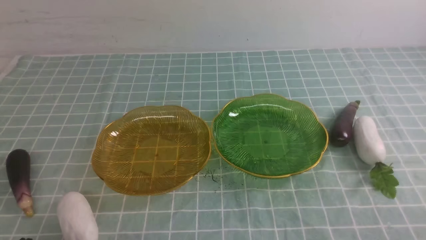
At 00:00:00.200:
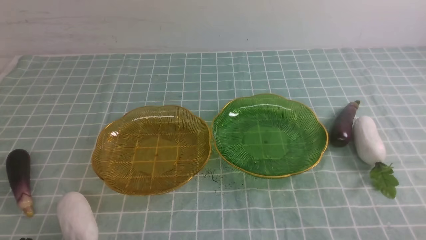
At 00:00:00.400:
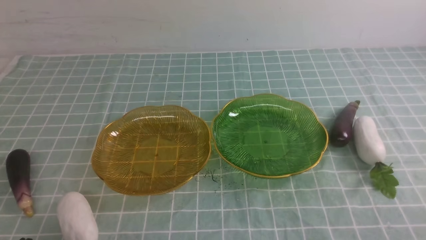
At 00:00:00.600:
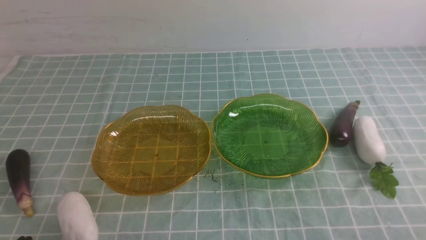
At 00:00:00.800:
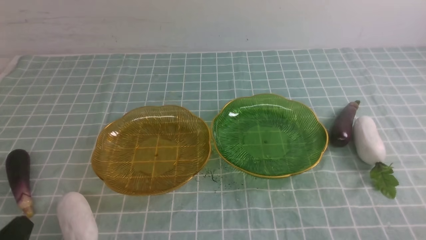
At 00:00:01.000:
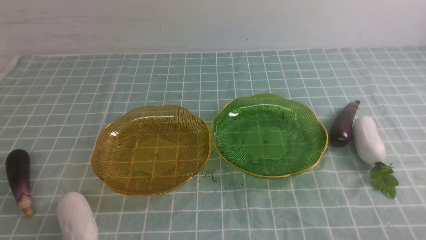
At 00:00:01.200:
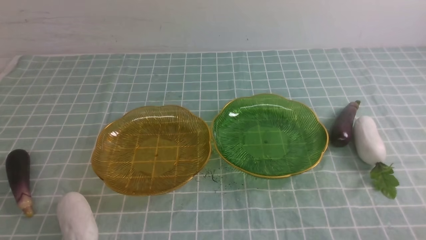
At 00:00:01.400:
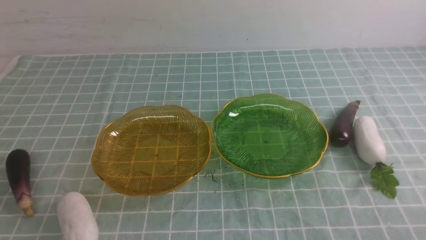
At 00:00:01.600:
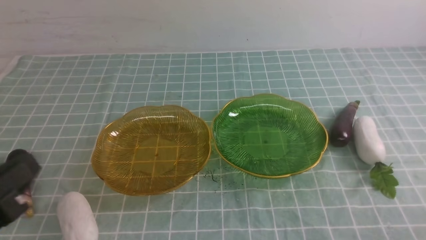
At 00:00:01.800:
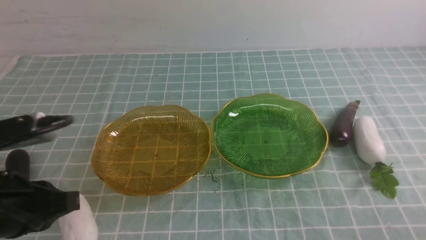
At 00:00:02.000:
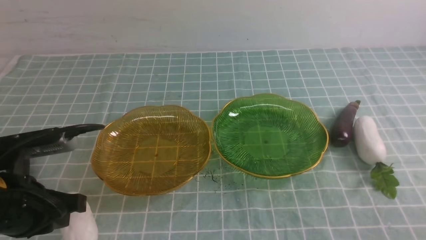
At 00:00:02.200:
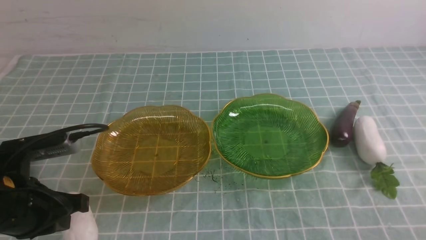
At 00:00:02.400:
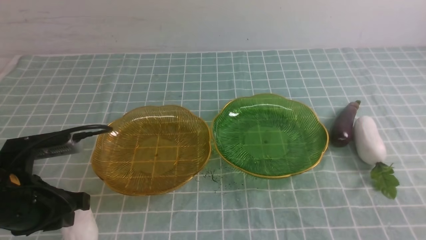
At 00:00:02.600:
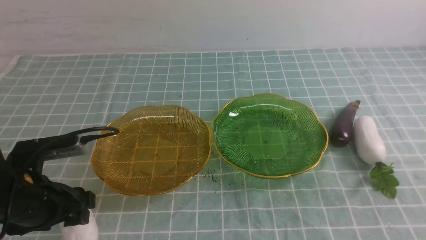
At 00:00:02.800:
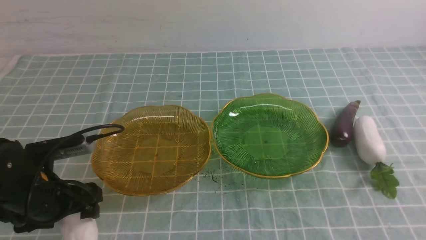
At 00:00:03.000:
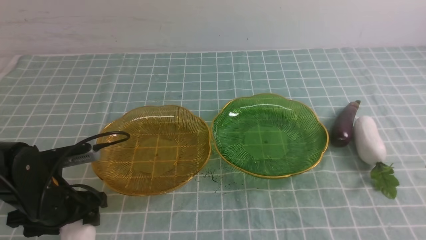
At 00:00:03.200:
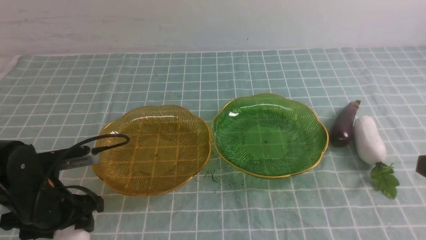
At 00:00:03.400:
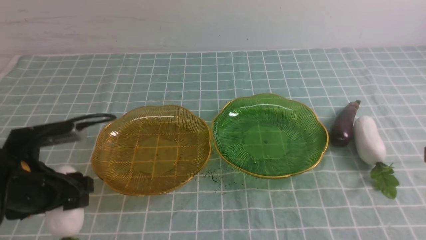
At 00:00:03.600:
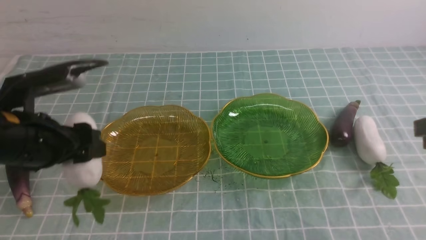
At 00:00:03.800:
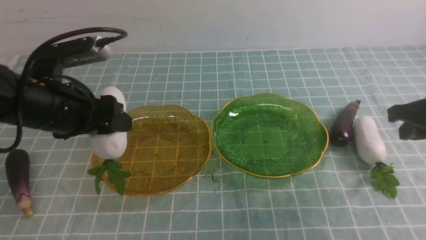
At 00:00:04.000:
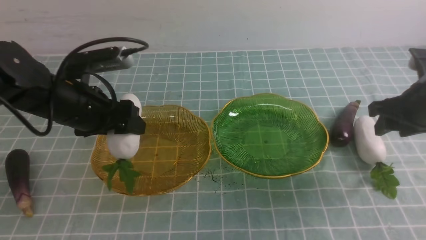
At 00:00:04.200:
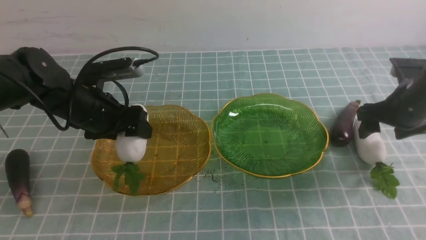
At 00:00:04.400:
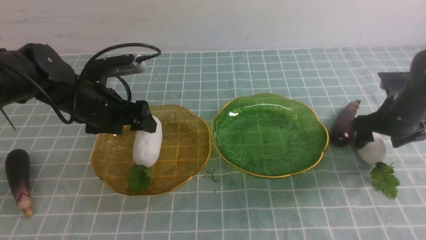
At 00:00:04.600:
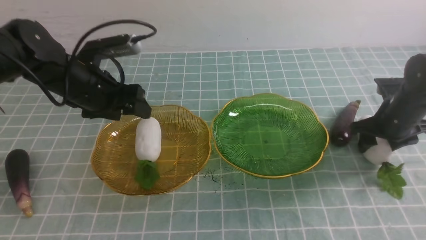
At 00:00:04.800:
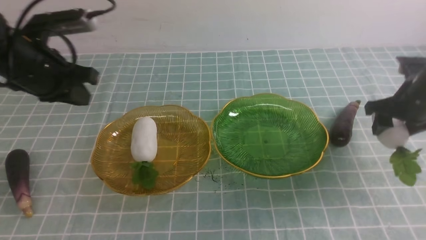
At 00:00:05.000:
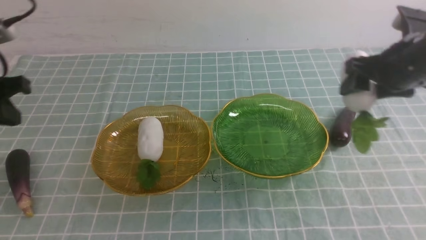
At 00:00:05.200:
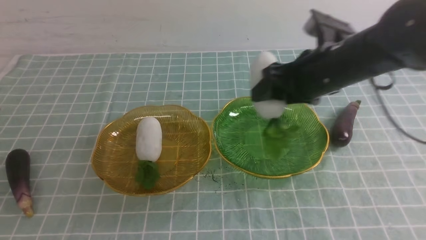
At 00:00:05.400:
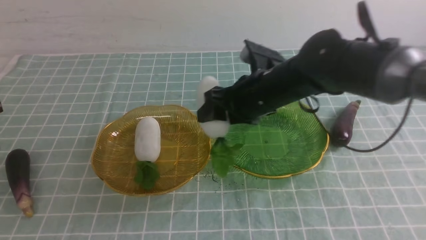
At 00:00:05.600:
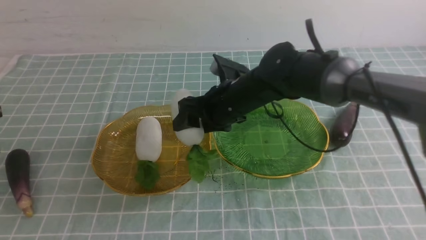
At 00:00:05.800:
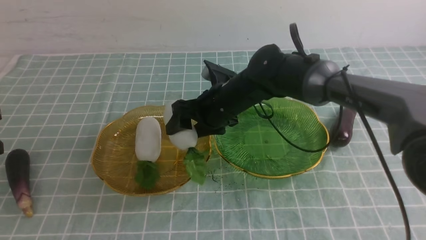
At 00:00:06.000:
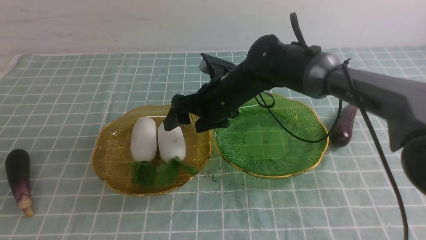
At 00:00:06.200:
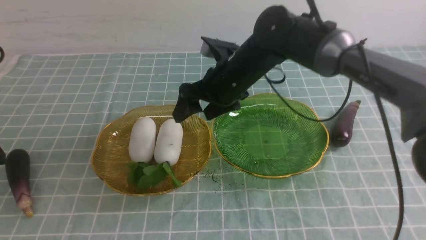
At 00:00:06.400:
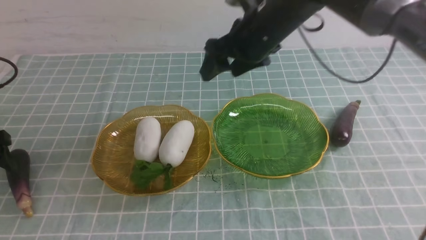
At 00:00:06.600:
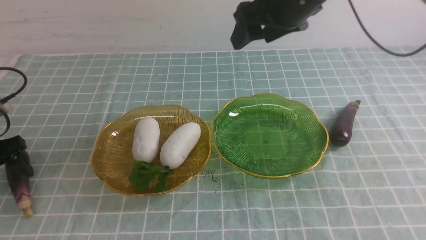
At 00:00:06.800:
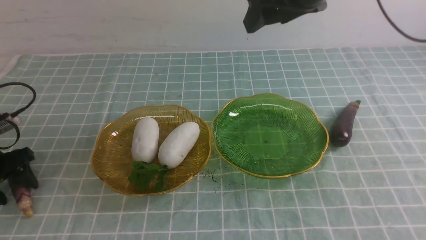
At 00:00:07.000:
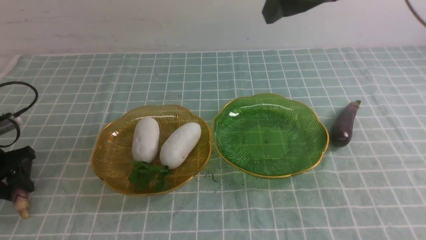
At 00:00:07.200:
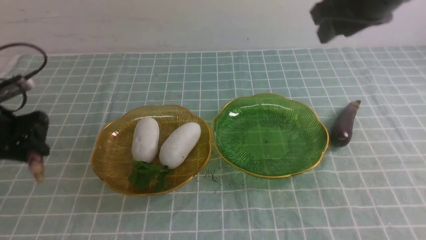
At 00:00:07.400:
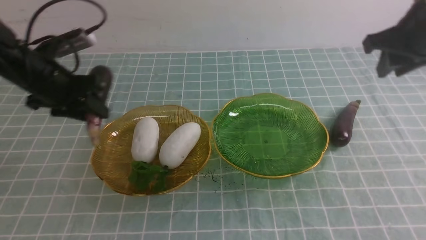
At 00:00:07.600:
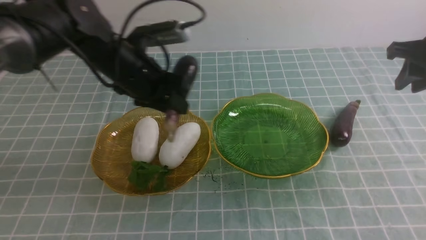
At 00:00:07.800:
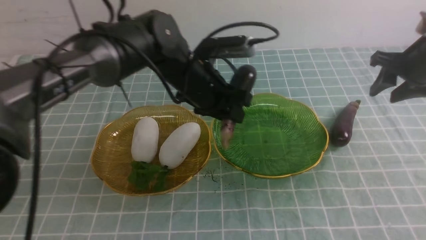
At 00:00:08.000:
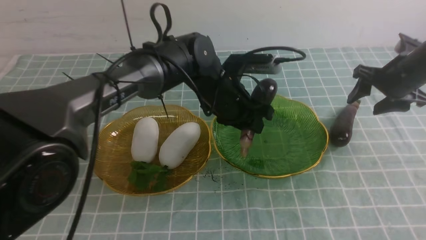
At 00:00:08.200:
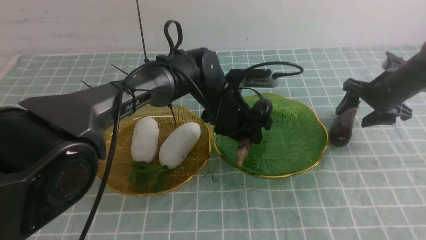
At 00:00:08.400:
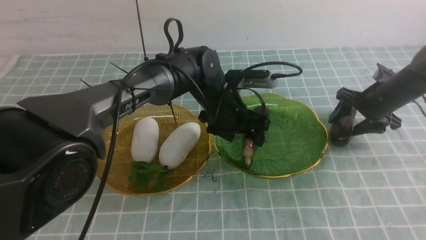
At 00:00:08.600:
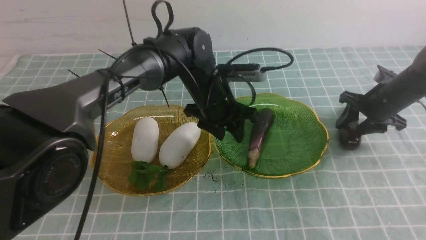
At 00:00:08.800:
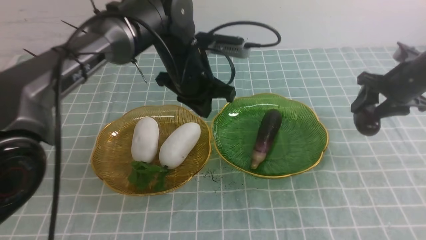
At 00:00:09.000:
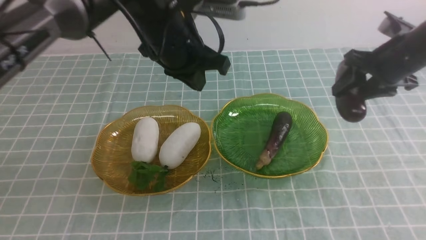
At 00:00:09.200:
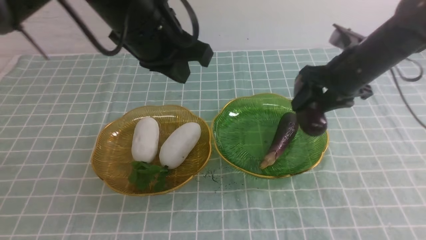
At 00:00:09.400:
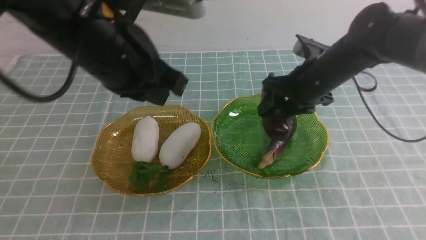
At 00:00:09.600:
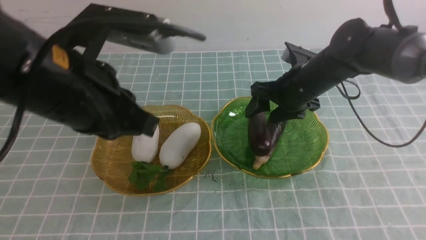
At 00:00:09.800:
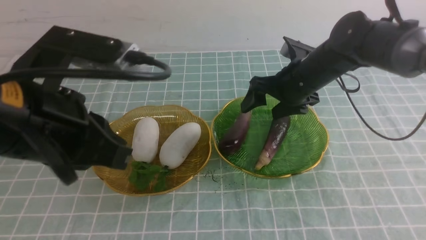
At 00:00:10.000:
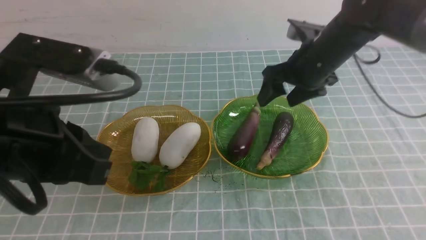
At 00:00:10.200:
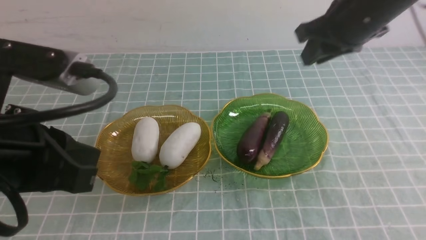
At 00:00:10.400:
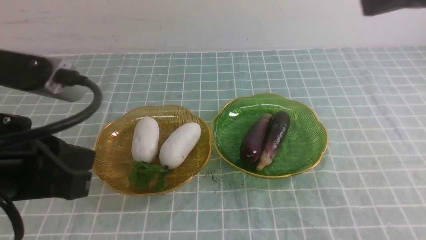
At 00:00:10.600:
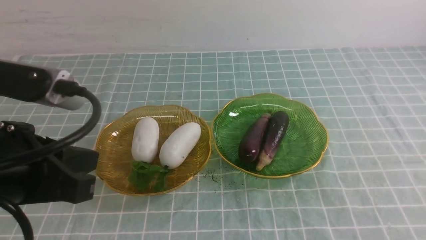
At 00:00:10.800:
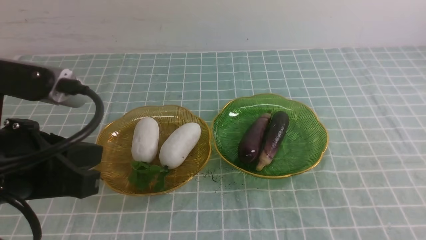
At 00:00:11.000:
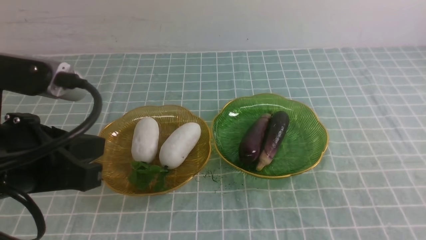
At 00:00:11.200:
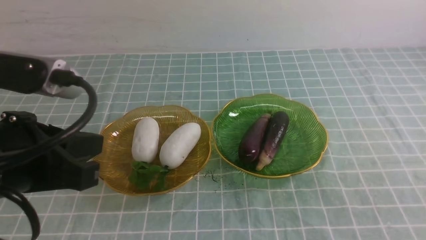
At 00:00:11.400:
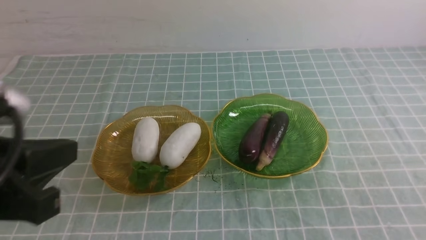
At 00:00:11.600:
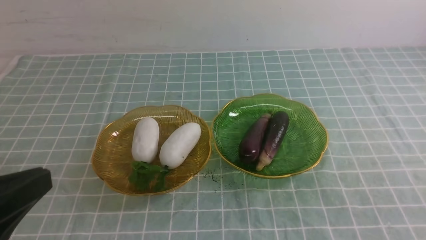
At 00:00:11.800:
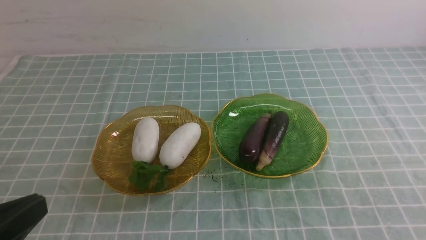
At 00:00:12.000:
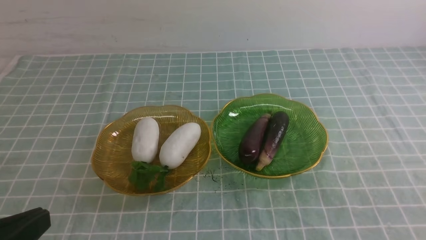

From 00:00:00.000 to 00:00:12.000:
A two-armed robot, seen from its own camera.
Step, from 00:00:00.000 to 00:00:04.400: use the left arm to grab a radish and put it into the left plate.
Step, from 00:00:04.600 to 00:00:05.800: use the right arm to grab a radish and put it into the left plate.
Step, from 00:00:06.000 to 00:00:08.200: use the left arm to grab an eggplant and put it into the right plate.
Step, from 00:00:08.400 to 00:00:09.600: use the right arm to grab an eggplant and put it into the right plate.
From 00:00:00.000 to 00:00:01.600: The left gripper shifts roughly 10 cm upward.
From 00:00:01.600 to 00:00:03.000: The left gripper heads forward and downward, covering approximately 20 cm, and opens its fingers.
From 00:00:03.000 to 00:00:04.400: The left gripper goes some 15 cm forward and upward, while the right gripper moves forward and downward, some 30 cm, and opens.
From 00:00:04.400 to 00:00:06.000: The right gripper heads to the left, covering about 30 cm, while the left gripper is displaced to the left and backward by approximately 20 cm, and closes, then opens again.
From 00:00:06.000 to 00:00:07.600: The right gripper moves to the right, roughly 30 cm, and closes. The left gripper travels to the right and forward by roughly 30 cm, and closes.
From 00:00:07.600 to 00:00:09.000: The right gripper moves to the left, approximately 5 cm, and reaches approximately 15 cm downward, then returns; the left gripper heads upward and to the right, covering approximately 10 cm, and closes.
From 00:00:09.000 to 00:00:10.400: The left gripper goes about 25 cm backward and to the left. The right gripper heads upward and backward, covering about 25 cm, and closes up.
From 00:00:10.400 to 00:00:12.000: The right gripper travels backward and downward by approximately 25 cm. The left gripper heads backward and downward, covering approximately 10 cm.

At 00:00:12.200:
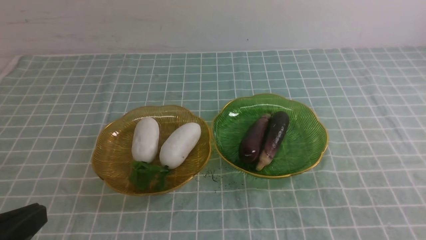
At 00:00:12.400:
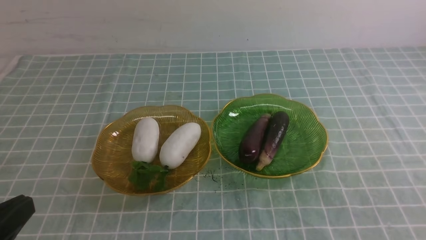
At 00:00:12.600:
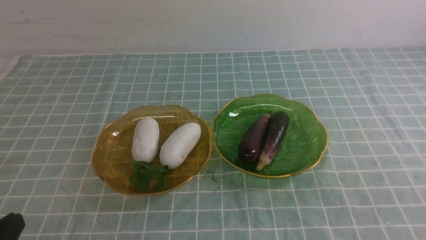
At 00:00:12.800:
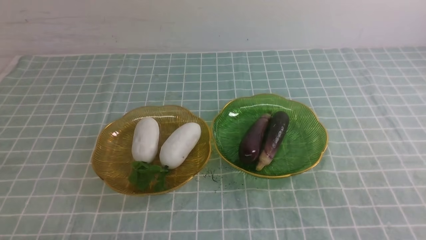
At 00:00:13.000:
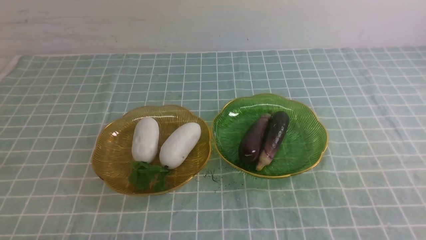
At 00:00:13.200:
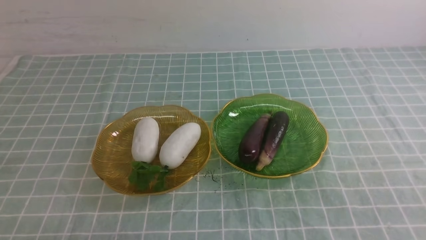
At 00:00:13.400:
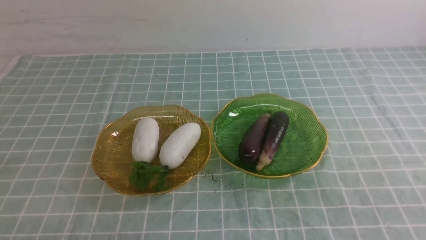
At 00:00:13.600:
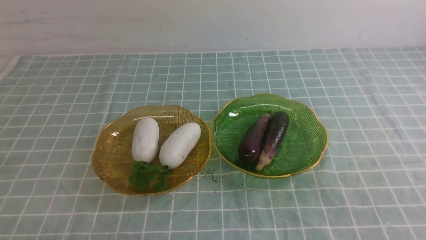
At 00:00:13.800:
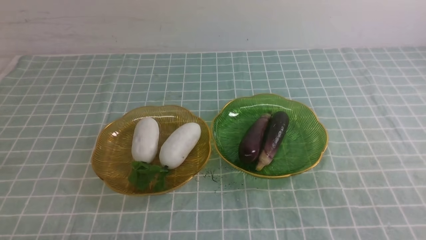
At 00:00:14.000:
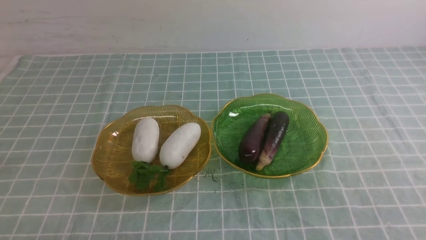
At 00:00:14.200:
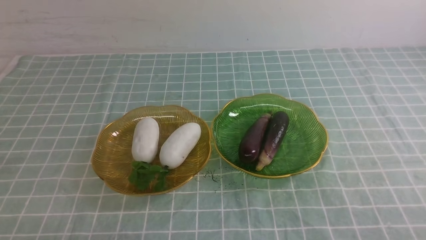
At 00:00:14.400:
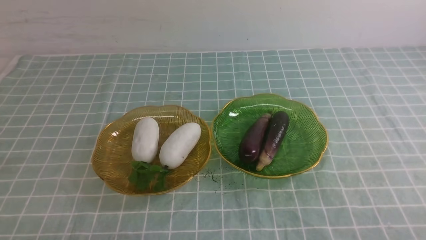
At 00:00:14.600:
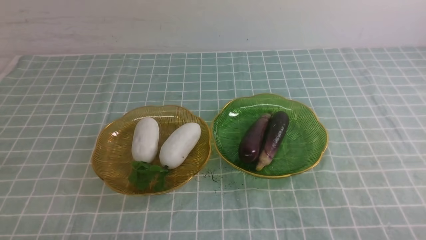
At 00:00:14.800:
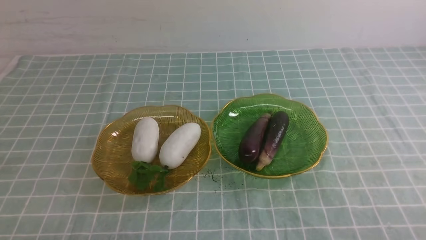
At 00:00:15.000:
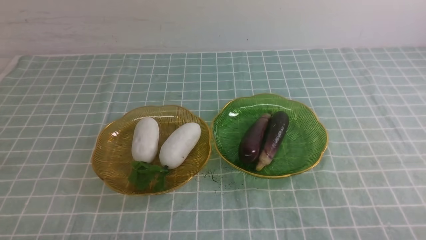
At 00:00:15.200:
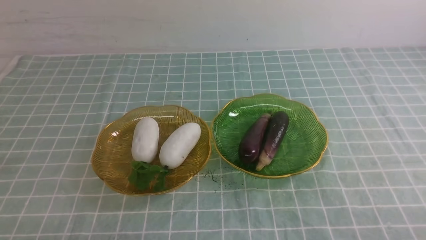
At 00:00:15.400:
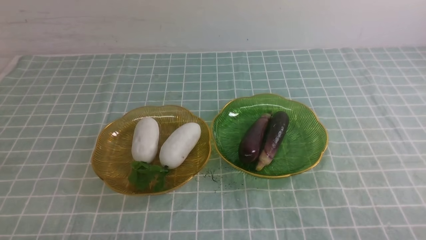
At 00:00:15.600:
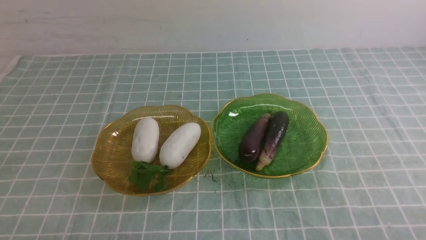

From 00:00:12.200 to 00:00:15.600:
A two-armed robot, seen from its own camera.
From 00:00:12.200 to 00:00:13.800: The left gripper heads downward, covering about 10 cm.
